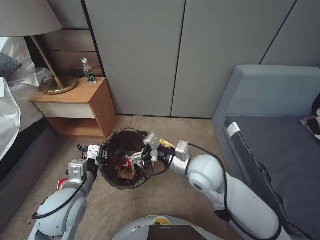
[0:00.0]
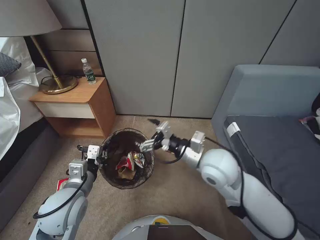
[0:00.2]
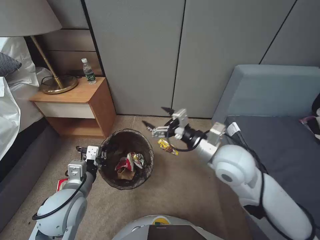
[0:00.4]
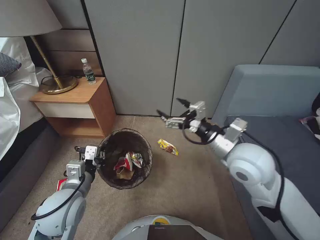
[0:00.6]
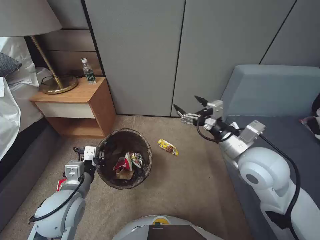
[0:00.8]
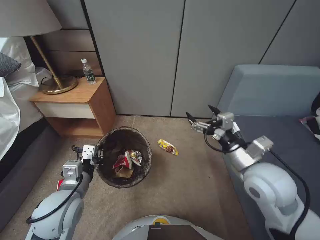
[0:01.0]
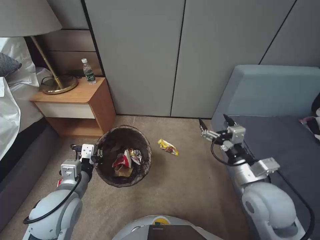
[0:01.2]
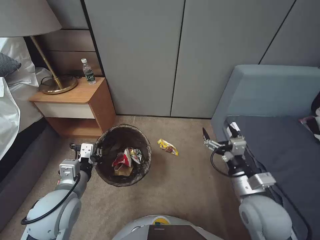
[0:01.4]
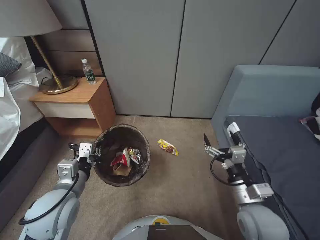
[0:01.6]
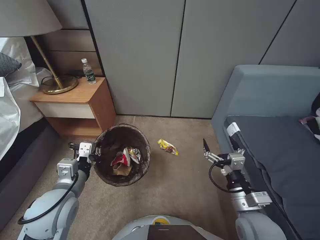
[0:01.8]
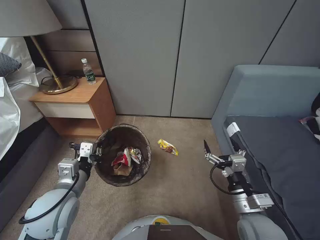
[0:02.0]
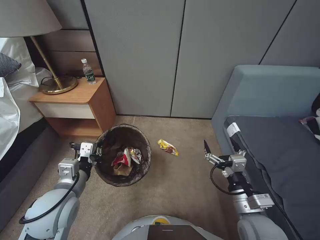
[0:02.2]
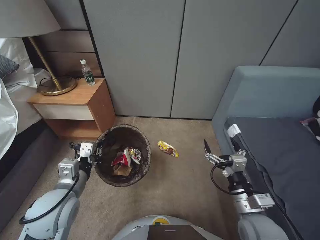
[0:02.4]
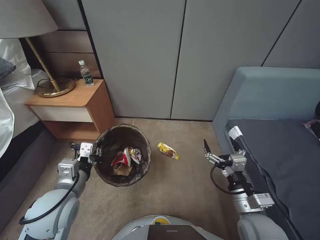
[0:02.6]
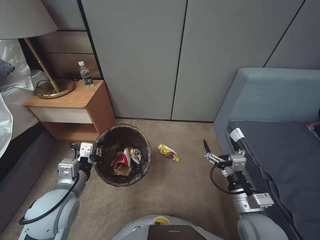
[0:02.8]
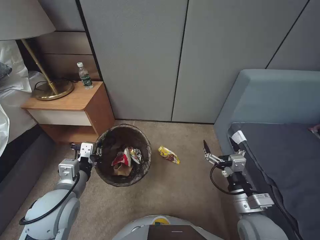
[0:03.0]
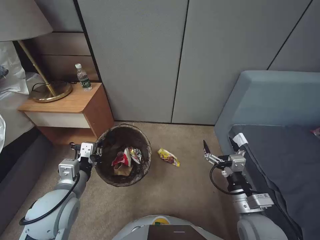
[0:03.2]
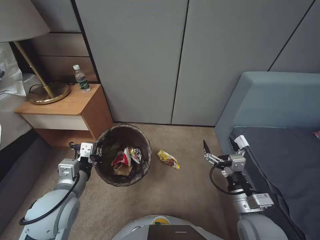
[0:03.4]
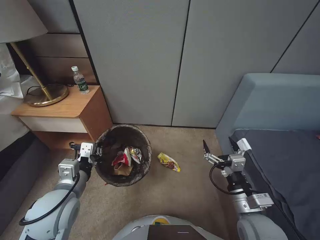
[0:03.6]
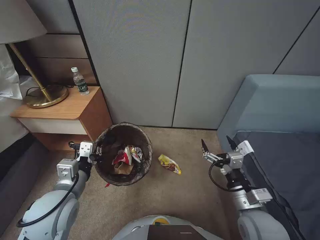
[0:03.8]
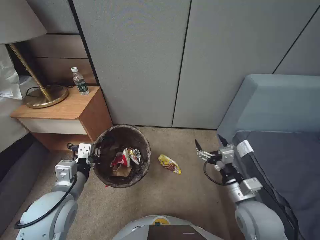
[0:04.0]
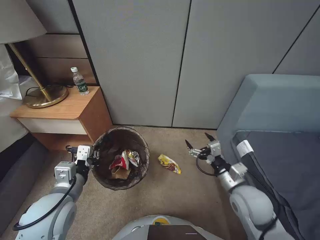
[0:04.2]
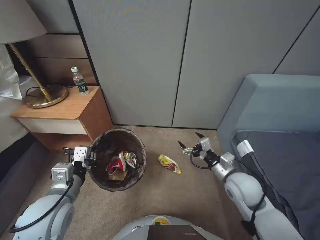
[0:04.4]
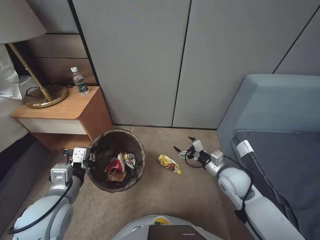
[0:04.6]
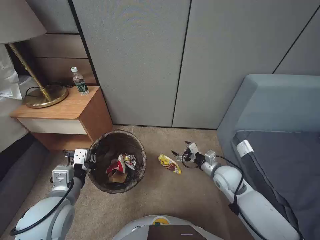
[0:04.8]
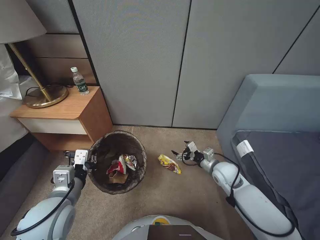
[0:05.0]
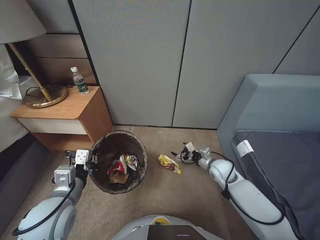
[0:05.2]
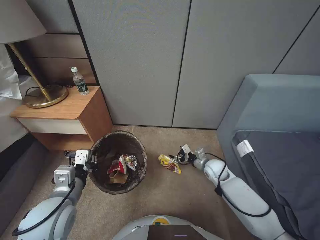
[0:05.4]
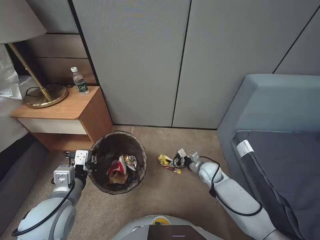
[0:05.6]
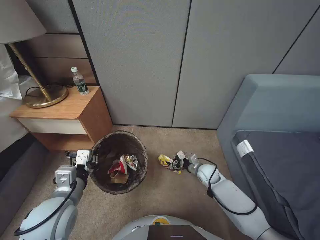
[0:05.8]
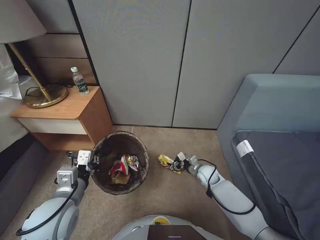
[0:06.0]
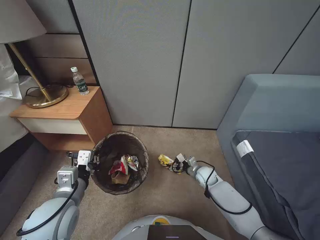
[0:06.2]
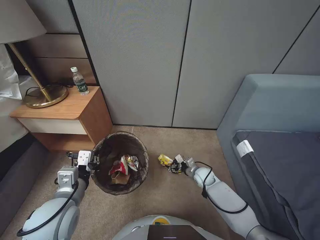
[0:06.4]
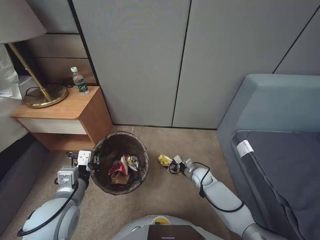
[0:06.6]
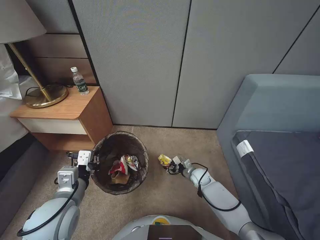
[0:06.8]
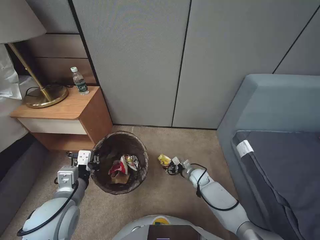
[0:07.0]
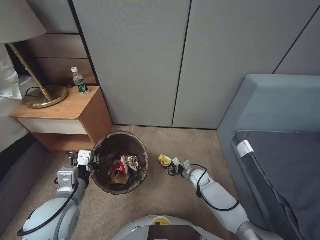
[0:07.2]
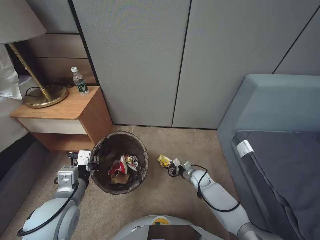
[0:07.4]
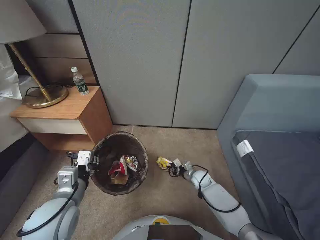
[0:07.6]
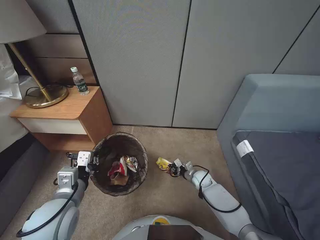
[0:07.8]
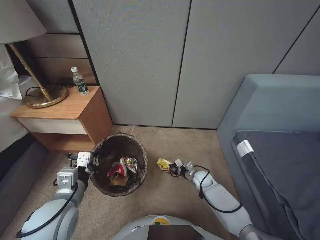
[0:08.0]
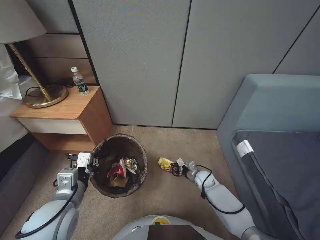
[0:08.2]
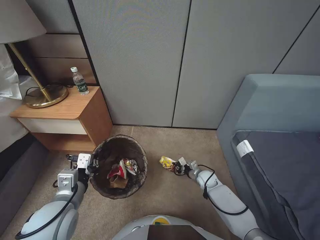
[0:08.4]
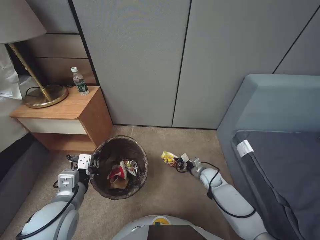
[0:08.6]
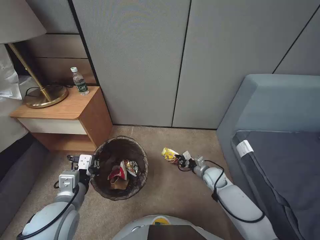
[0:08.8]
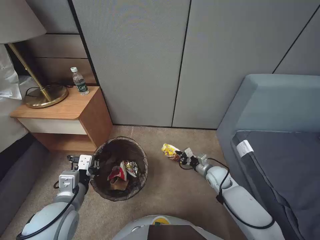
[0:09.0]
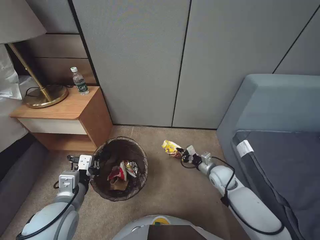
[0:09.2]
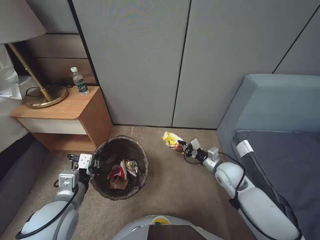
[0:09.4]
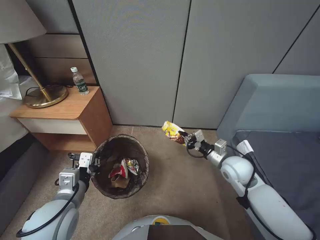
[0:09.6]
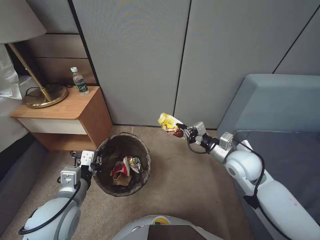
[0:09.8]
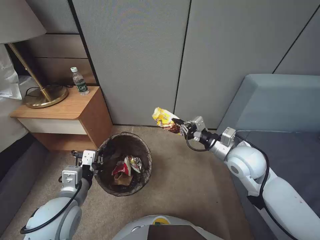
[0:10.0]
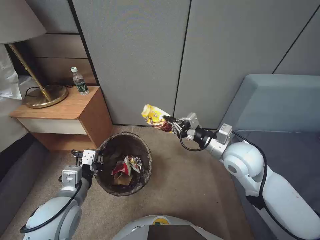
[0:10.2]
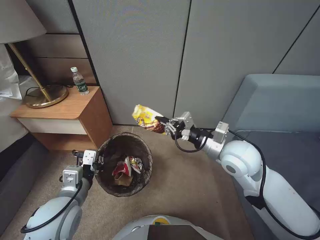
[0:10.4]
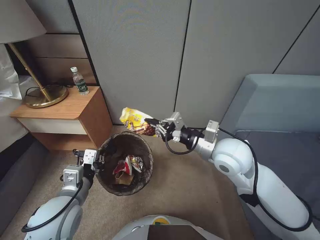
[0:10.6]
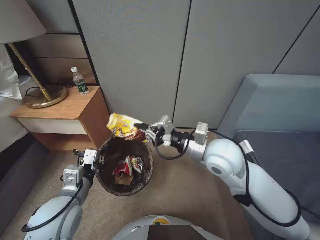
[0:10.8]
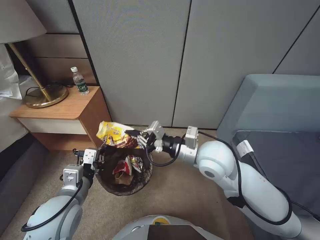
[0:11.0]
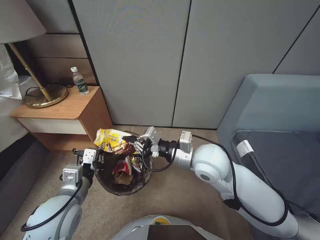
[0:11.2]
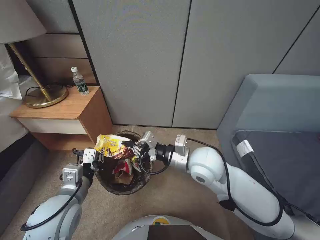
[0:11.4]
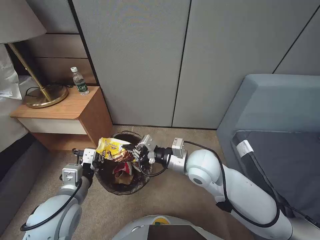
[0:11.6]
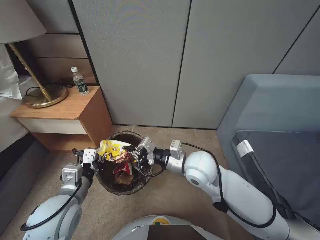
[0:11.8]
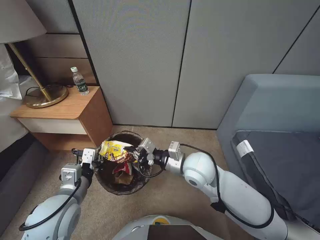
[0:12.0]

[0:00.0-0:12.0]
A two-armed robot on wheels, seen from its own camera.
Task of the whole recording: Pick up the trash bin, then pick up the garbage from the floor and place it into the trash bin.
0:00.0 to 0:01.6: The right gripper moves to the right and backward, about 20 cm.
0:01.6 to 0:03.0: The grippers stay close to where they were, moving slightly.
0:03.0 to 0:04.4: The right gripper heads forward, covering roughly 10 cm.
0:04.4 to 0:06.0: The right gripper shifts about 25 cm downward and forward.
0:06.0 to 0:07.6: The right gripper travels downward by approximately 5 cm, and closes up.
0:07.6 to 0:09.0: The right gripper heads upward, covering some 10 cm, and closes its fingers.
0:09.0 to 0:10.4: The right gripper moves upward, approximately 30 cm.
0:10.4 to 0:12.0: The right gripper travels to the left and downward by about 10 cm.

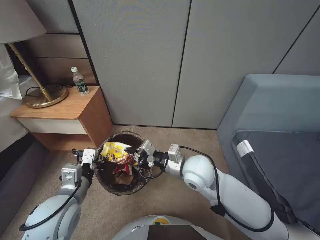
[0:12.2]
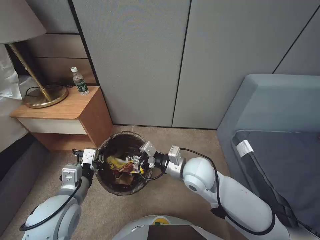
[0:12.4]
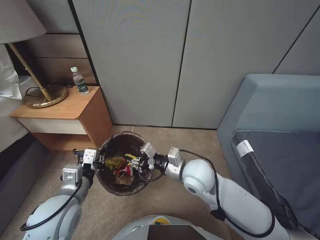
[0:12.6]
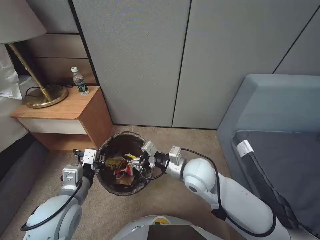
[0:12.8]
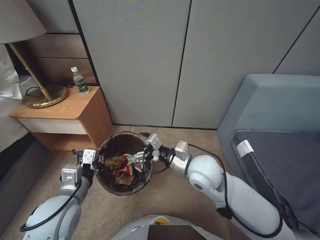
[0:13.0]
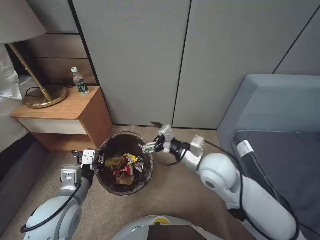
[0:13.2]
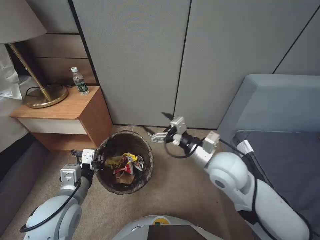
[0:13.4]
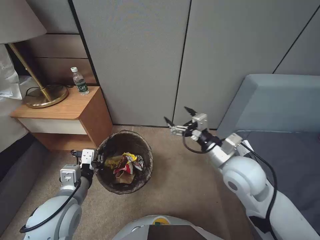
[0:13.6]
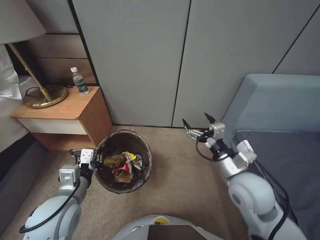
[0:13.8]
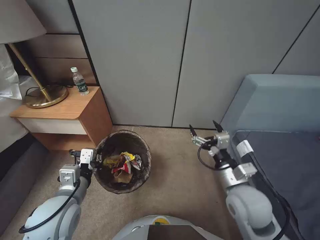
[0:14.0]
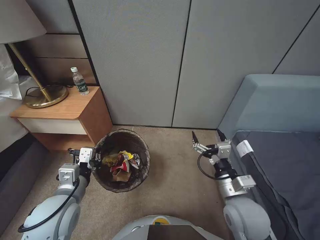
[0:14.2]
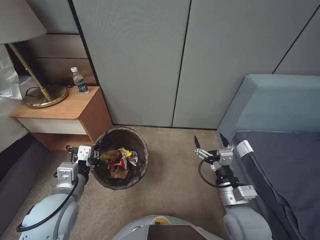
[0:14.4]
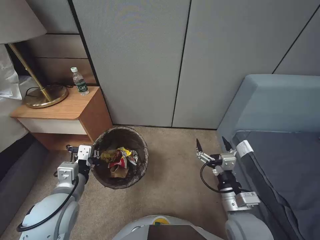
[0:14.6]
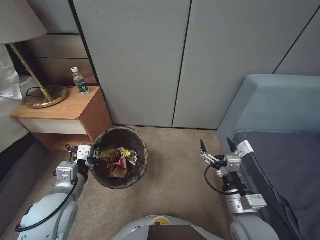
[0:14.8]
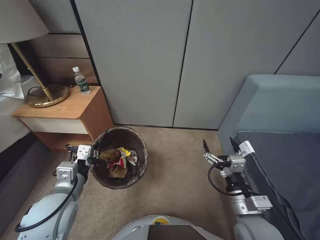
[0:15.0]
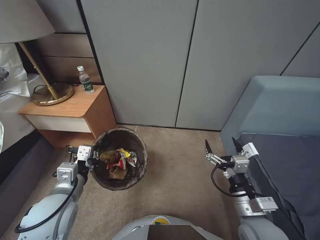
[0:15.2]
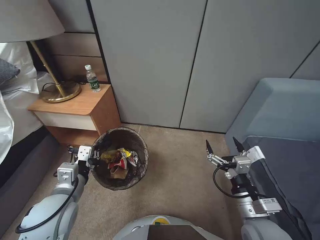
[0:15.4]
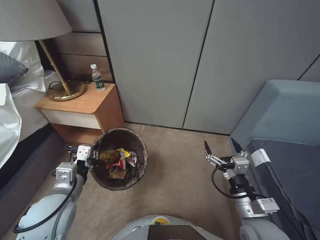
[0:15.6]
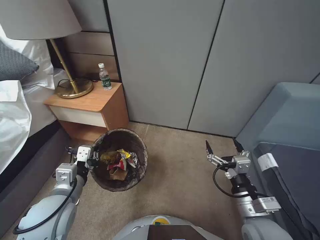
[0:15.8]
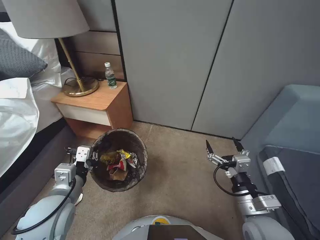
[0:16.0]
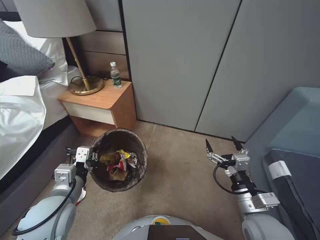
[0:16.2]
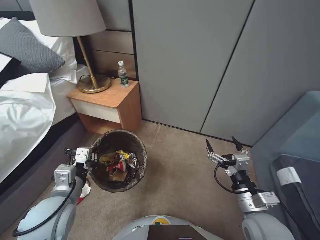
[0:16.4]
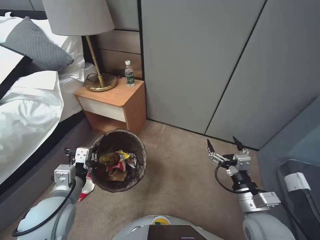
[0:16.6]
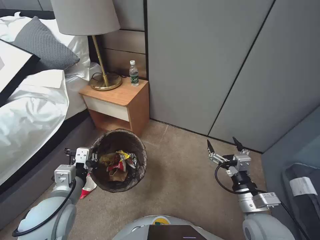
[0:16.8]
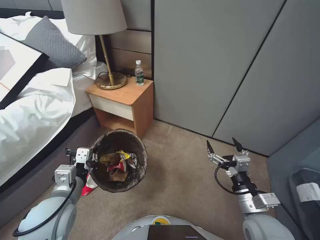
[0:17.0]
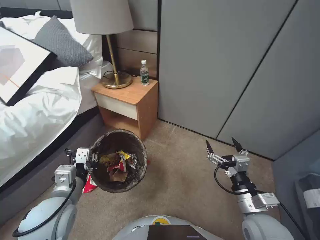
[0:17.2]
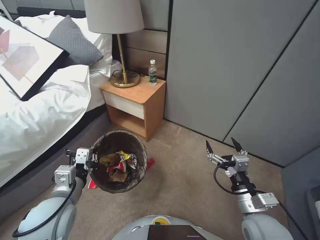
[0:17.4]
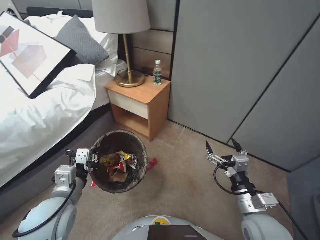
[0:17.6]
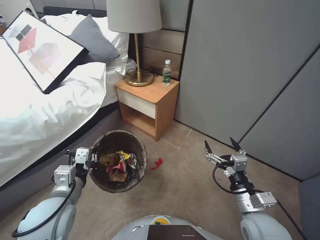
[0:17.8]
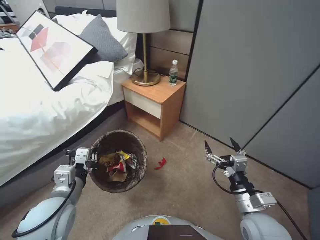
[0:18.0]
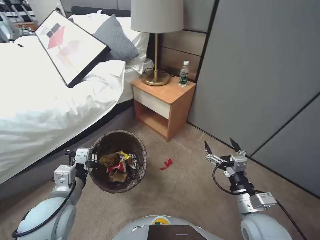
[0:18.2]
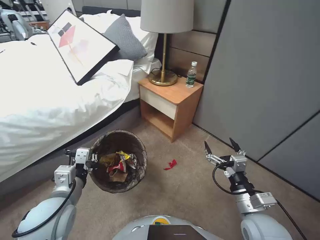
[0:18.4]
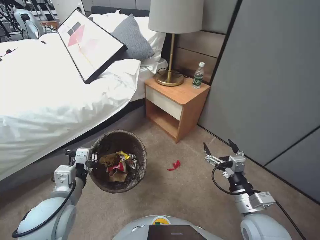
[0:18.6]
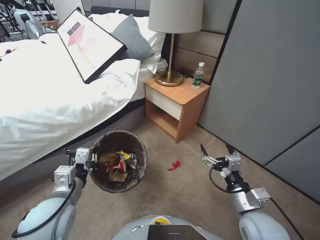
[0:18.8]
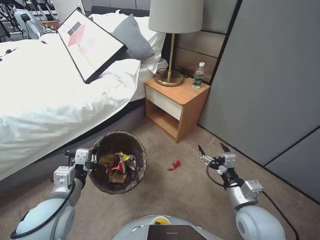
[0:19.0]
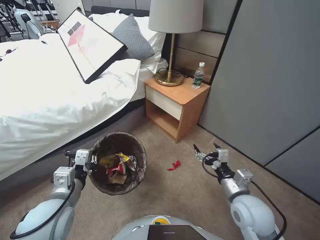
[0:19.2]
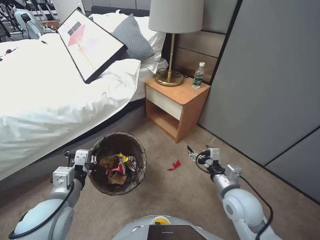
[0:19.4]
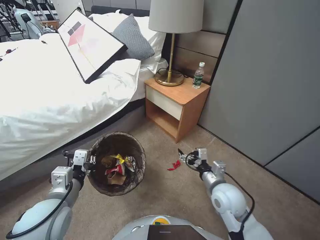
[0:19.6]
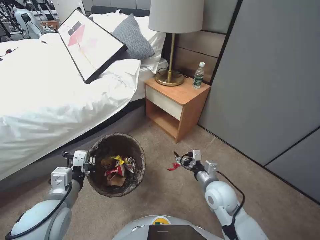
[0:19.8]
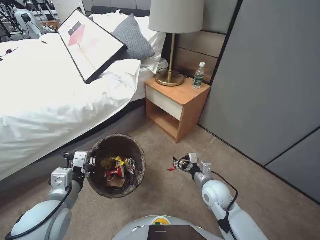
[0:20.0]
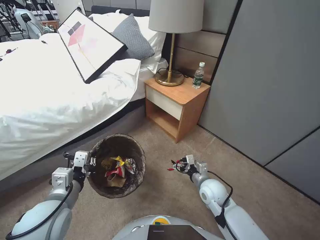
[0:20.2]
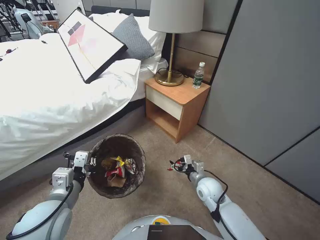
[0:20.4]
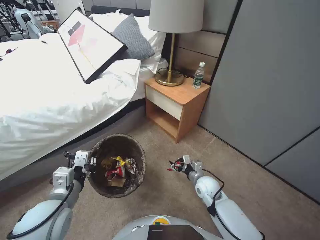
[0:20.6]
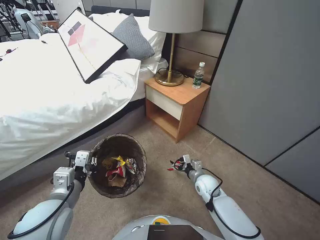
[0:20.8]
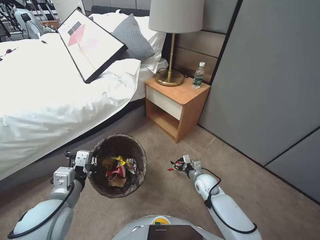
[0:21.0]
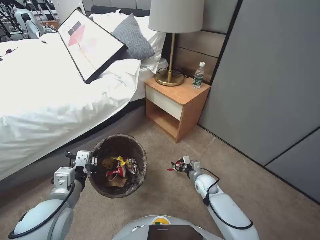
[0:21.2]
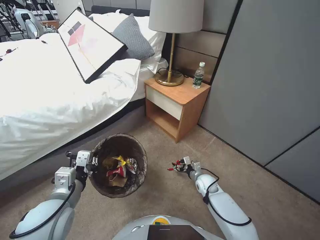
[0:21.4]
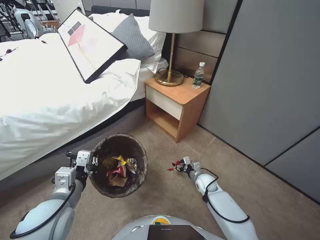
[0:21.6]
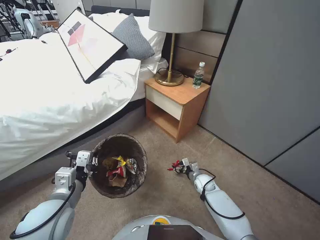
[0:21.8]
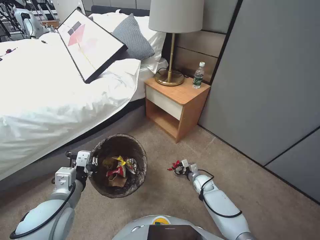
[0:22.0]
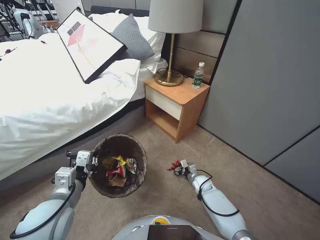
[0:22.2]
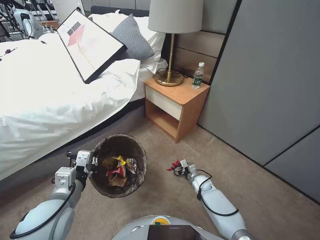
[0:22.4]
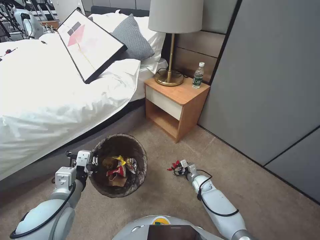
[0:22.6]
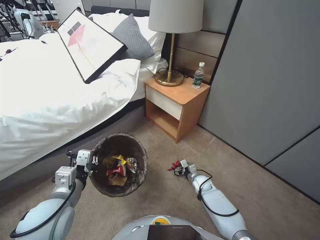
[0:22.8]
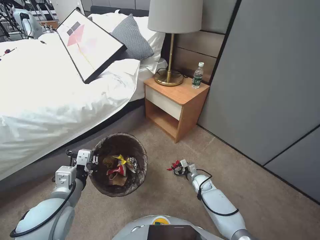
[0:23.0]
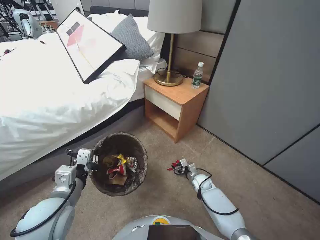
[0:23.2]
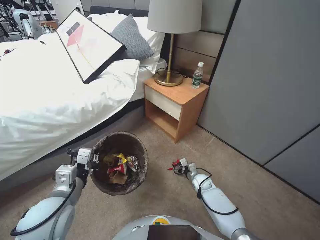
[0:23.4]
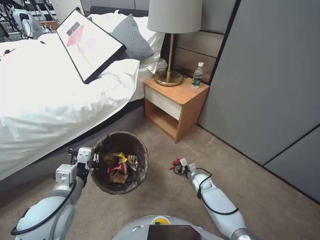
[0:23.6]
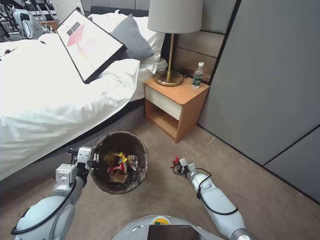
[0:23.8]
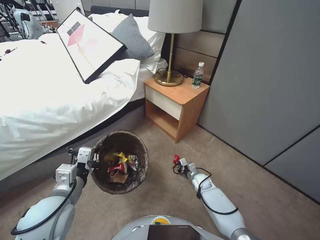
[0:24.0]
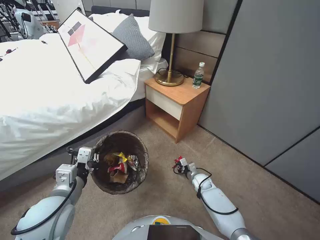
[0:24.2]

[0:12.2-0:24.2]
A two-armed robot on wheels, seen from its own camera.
Task of the whole recording: Pick up the trash bin, then pick up the garbage from the floor and place it into the trash bin.
0:12.2 to 0:13.8: The right gripper shifts approximately 10 cm to the right, and opens.
0:13.8 to 0:15.2: The right gripper shifts approximately 15 cm backward and downward.
0:18.2 to 0:19.8: The right gripper travels forward and to the left by some 10 cm.
0:19.8 to 0:21.2: The right gripper travels downward and forward by approximately 20 cm.
0:21.2 to 0:22.6: The right gripper moves downward, roughly 10 cm.
0:22.6 to 0:24.2: The right gripper closes up.
